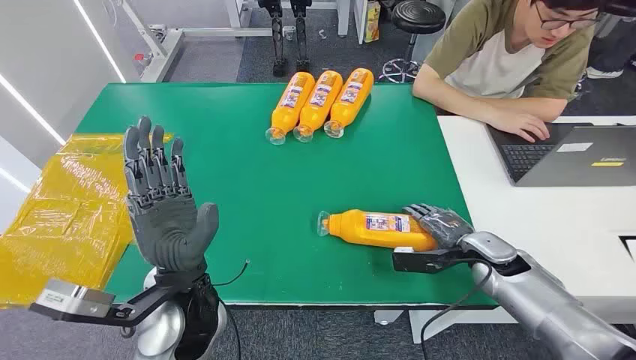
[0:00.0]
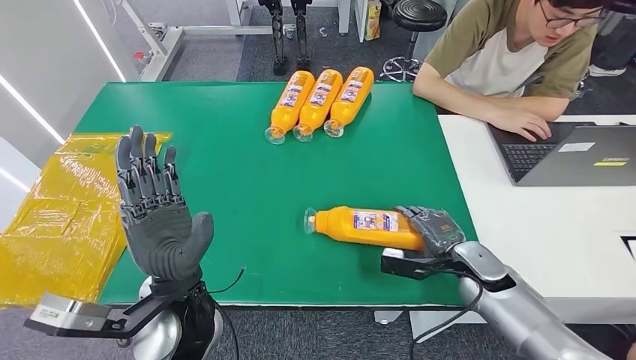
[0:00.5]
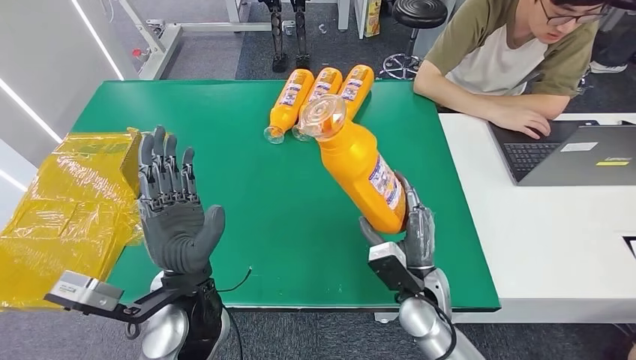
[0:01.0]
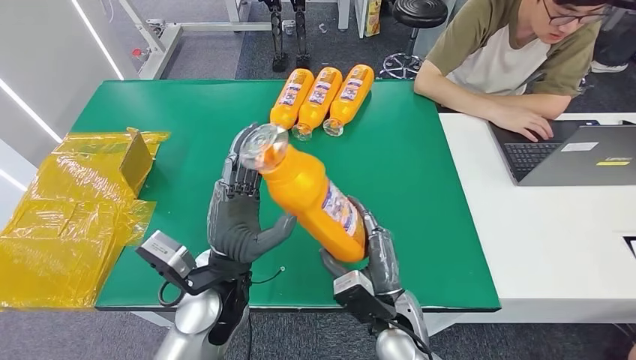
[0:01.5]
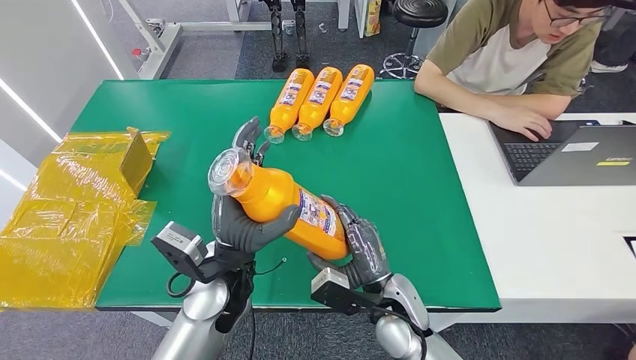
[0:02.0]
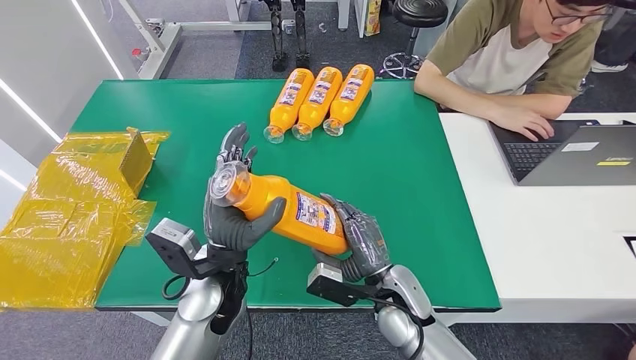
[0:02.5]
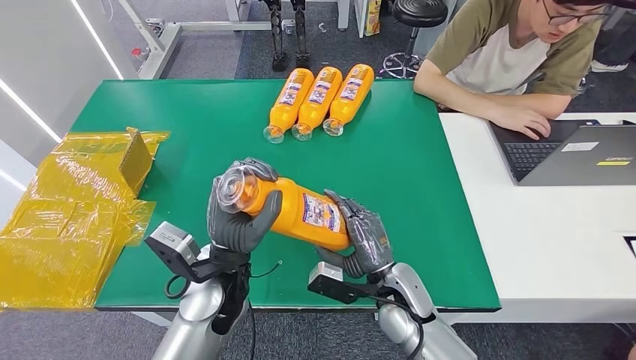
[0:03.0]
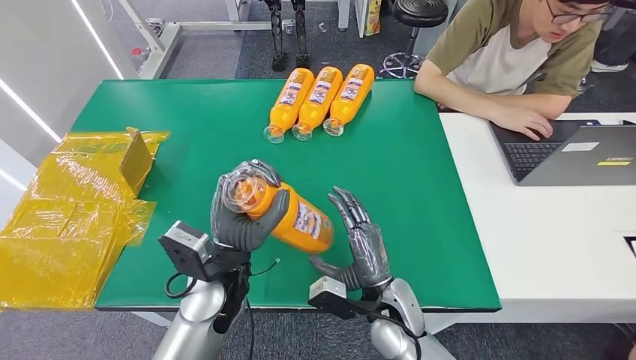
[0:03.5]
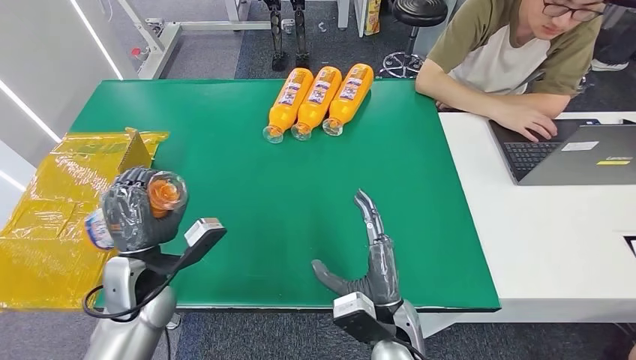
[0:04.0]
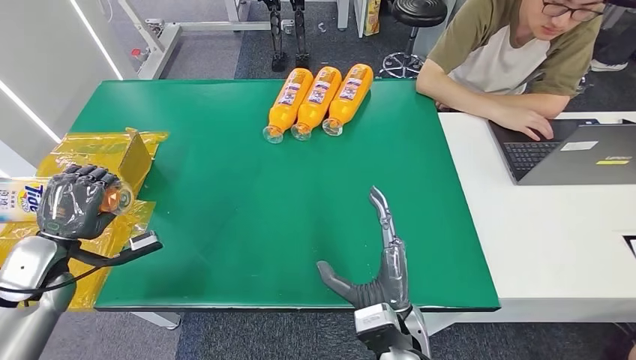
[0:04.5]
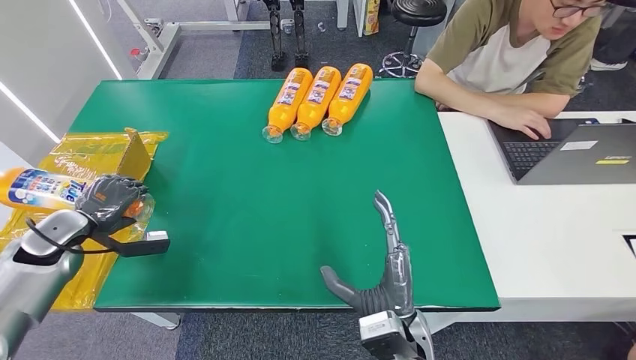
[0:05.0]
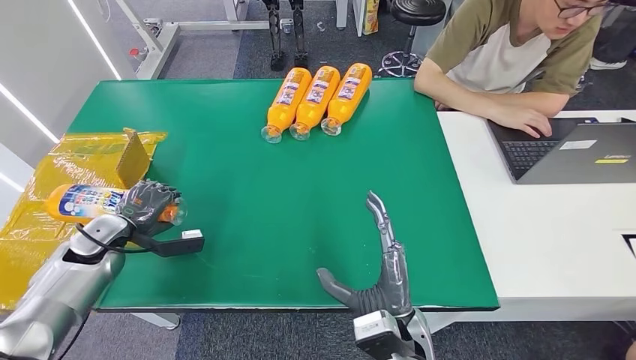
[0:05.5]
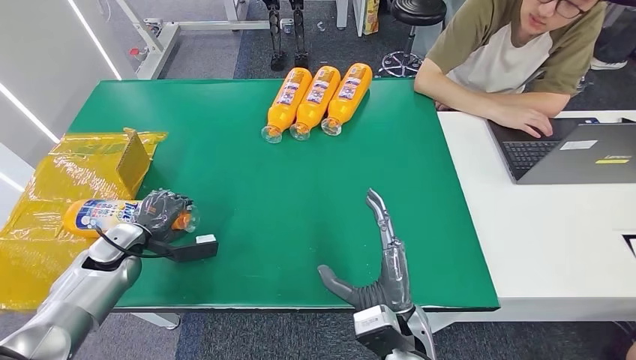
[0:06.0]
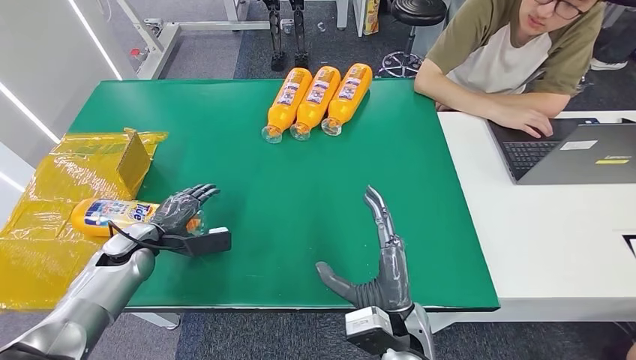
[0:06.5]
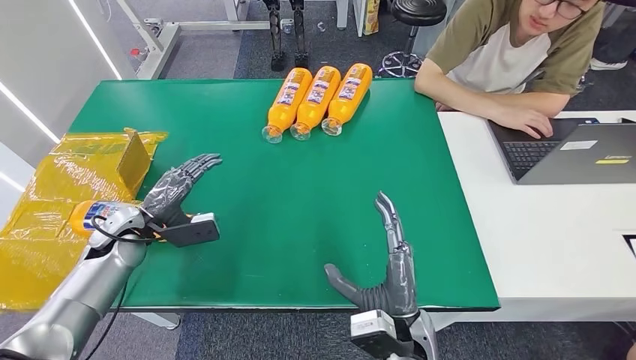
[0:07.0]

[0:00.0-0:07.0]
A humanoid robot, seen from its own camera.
Step, 0:00.0 to 0:02.0: Pick up the bottle from the table.
Step, 0:02.5 to 0:07.0: Turn the bottle to the front side.
0:02.0 to 0:03.5: The hands move only a little.
0:03.5 to 0:05.0: The right hand travels backward by roughly 5 cm. The left hand moves to the left, some 40 cm.
0:05.0 to 0:07.0: The left hand moves to the right, roughly 10 cm.
